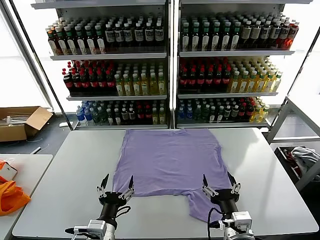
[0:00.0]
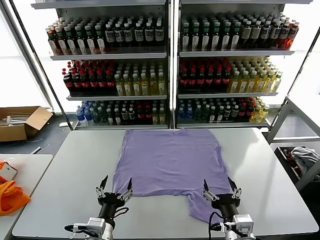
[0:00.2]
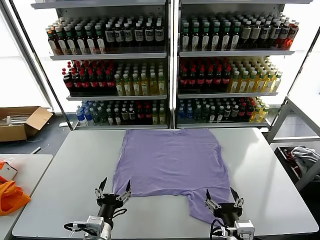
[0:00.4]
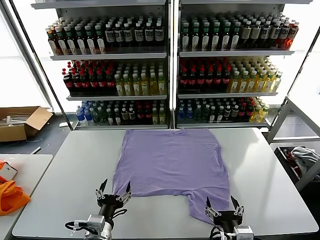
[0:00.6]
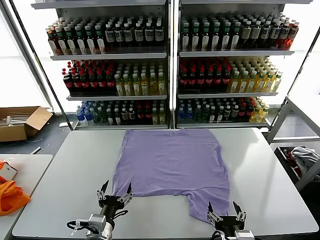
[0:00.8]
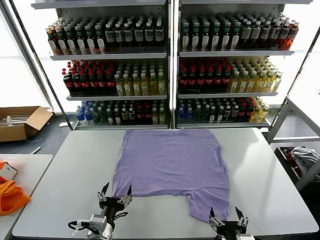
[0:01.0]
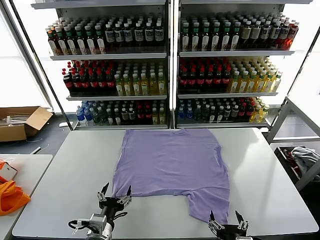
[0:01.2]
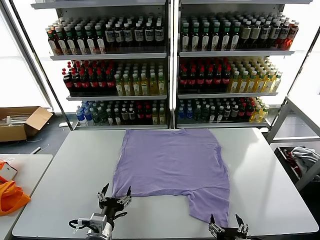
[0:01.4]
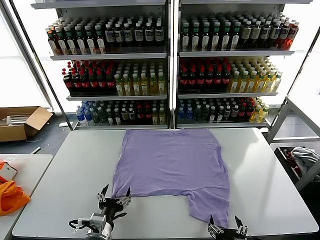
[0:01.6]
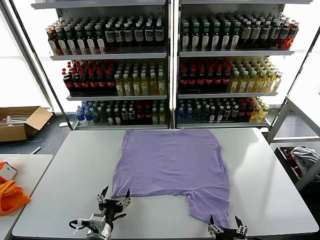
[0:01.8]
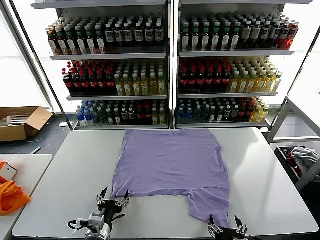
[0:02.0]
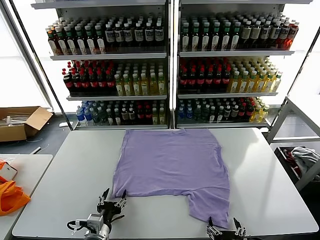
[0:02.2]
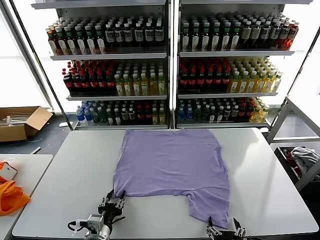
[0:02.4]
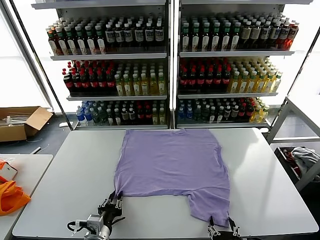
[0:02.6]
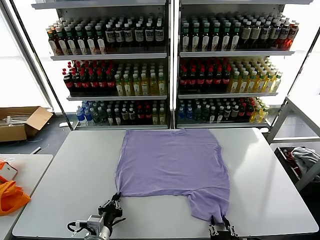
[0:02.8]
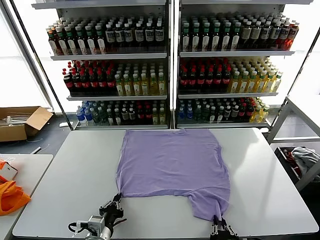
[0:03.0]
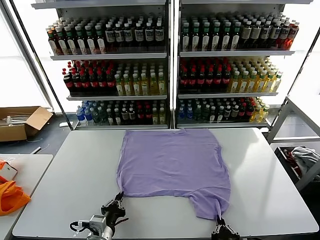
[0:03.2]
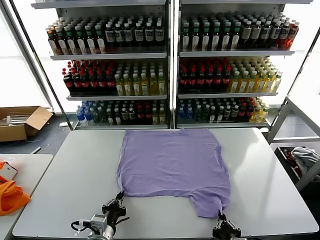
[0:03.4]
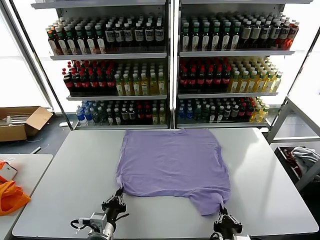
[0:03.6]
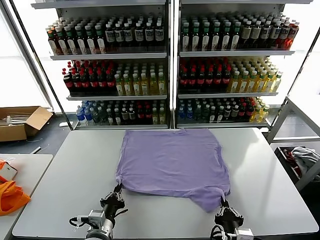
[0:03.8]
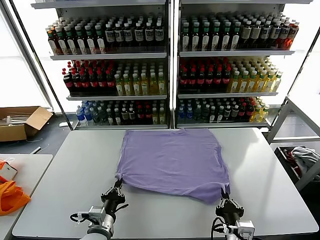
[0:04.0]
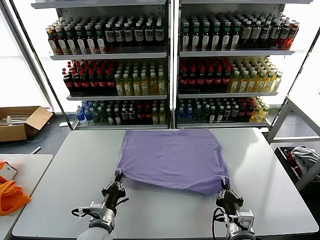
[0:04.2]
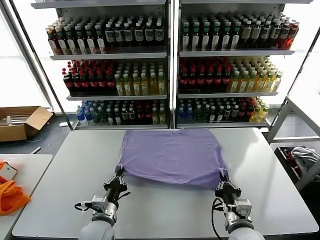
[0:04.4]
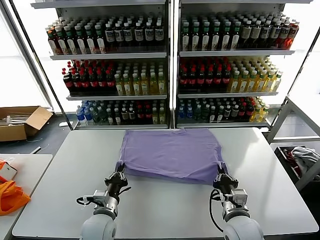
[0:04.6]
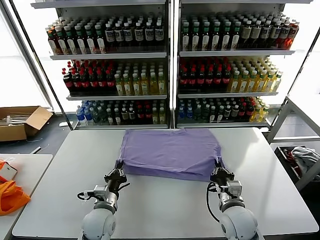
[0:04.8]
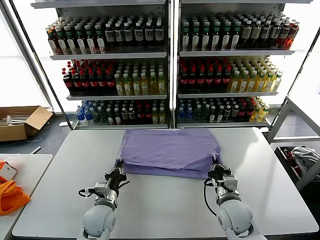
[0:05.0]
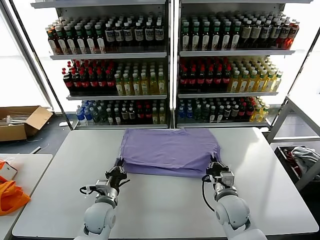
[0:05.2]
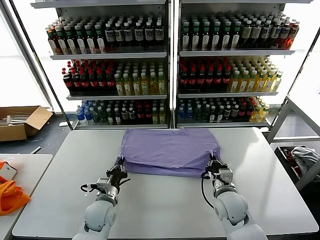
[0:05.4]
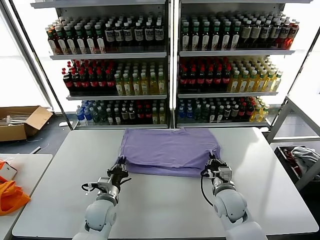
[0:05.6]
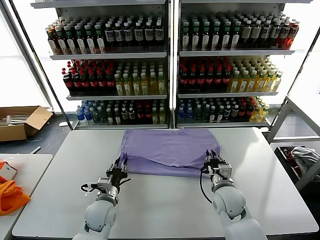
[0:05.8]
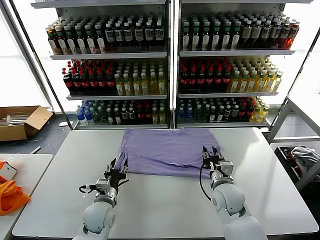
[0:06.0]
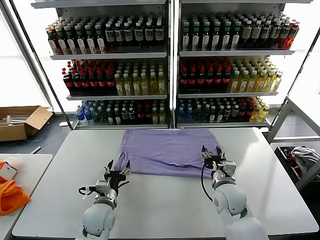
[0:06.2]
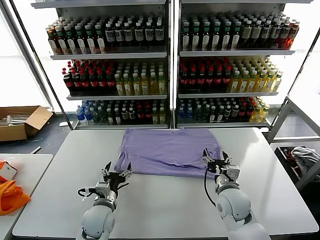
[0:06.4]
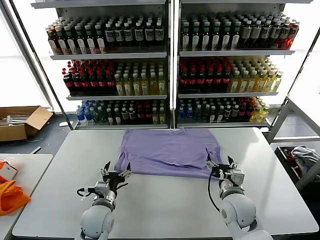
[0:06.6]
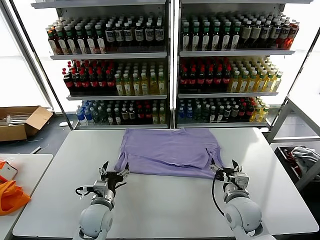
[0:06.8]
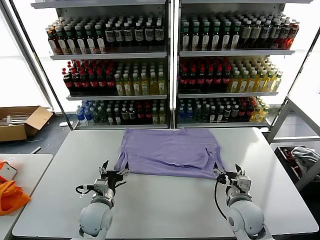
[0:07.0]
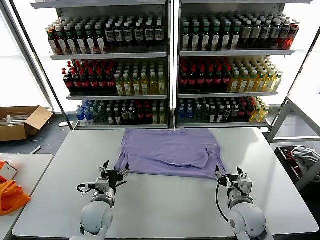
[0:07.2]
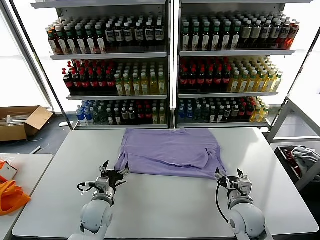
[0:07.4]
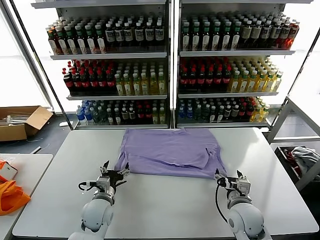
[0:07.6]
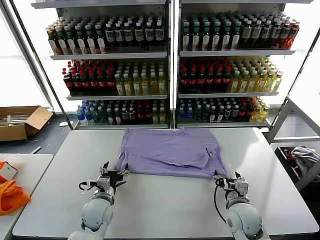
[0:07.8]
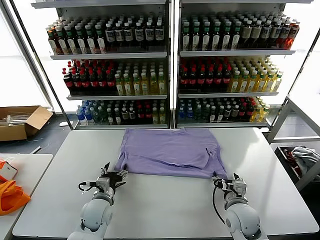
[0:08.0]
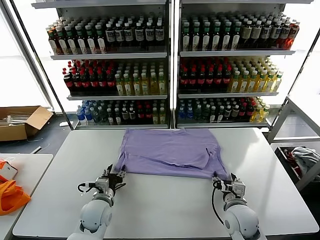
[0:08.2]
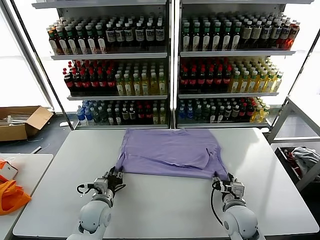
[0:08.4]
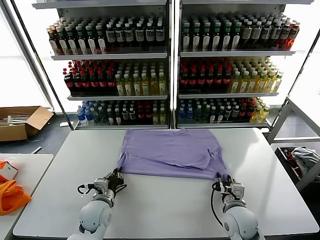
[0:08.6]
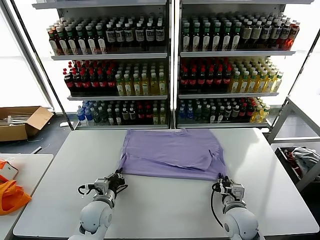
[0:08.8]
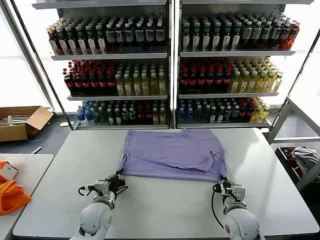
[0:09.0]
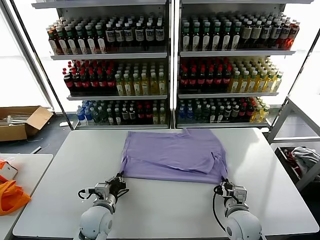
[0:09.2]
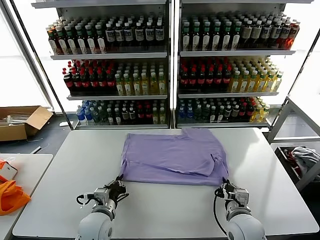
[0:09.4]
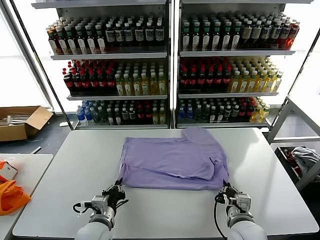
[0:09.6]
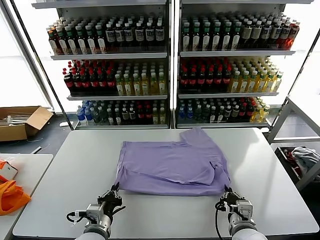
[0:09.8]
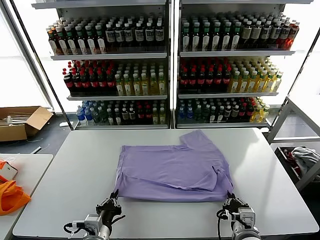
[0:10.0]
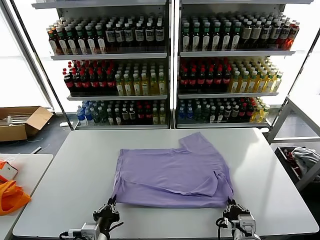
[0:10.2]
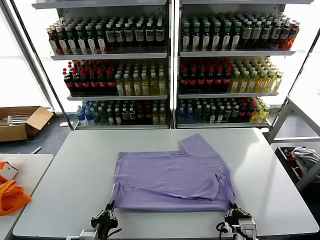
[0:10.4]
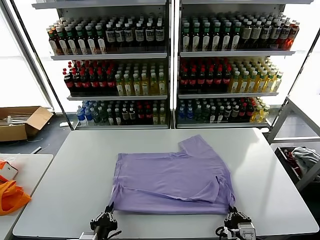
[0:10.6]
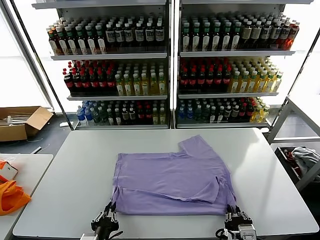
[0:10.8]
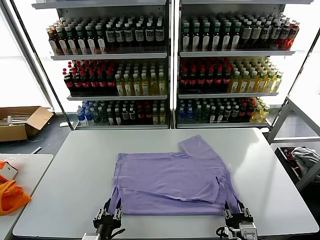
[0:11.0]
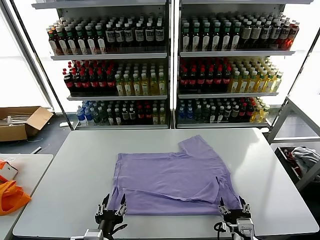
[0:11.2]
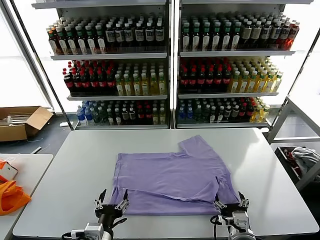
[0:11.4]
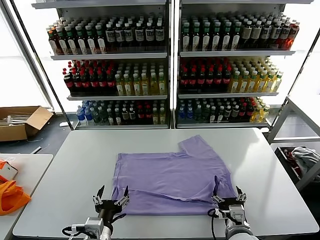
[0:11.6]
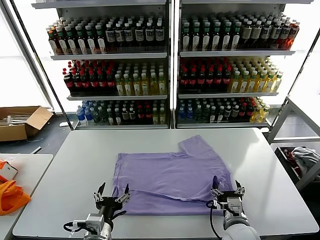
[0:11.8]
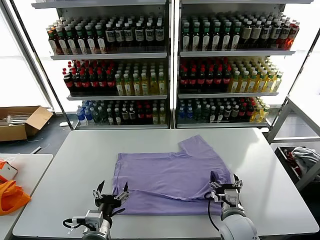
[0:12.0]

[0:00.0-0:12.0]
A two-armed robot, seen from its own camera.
Task of the whole recording: fold and organize the clothes.
Step, 0:00.0 to 0:03.4: use both grippers simultaneously to clamp the lower edge of the clothing fabric.
Step, 0:03.6 to 0:06.0: use both grippers to drag the lower edge of the fabric forward and fold it over the upper edge.
Step, 0:06.2 to 0:11.0: Drag the clothes downward with both gripper.
0:01.6 to 0:03.0: The right gripper closes; the left gripper closes up.
0:03.0 to 0:04.4: The left gripper heads forward, covering approximately 5 cm. Meanwhile the right gripper goes approximately 15 cm forward.
0:04.4 to 0:06.0: The left gripper is displaced forward by about 5 cm, and opens, while the right gripper shifts about 10 cm forward, and opens.
0:06.0 to 0:07.6: The right gripper moves backward, some 5 cm, and opens.
0:07.6 to 0:09.0: The left gripper closes up. Meanwhile the right gripper closes its fingers.
0:09.0 to 0:10.4: The two grippers go about 15 cm backward.
0:10.4 to 0:12.0: The left gripper opens up. The right gripper goes about 10 cm forward, and opens.

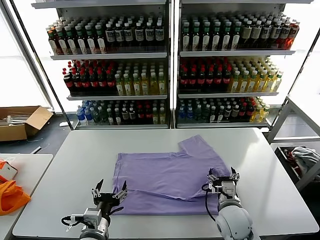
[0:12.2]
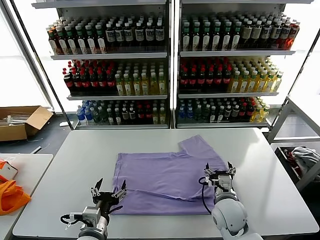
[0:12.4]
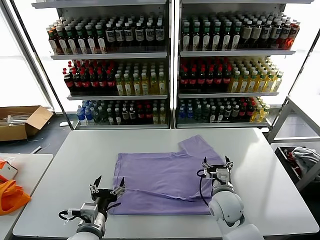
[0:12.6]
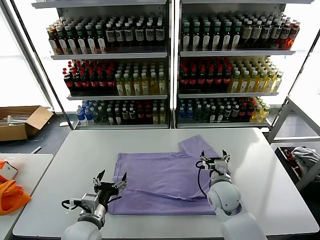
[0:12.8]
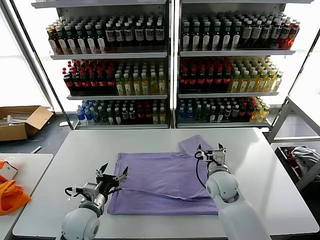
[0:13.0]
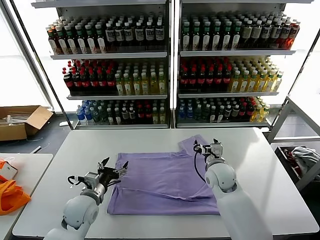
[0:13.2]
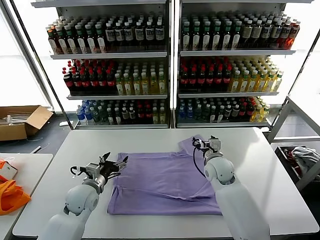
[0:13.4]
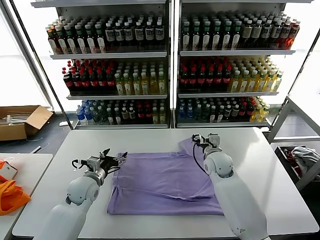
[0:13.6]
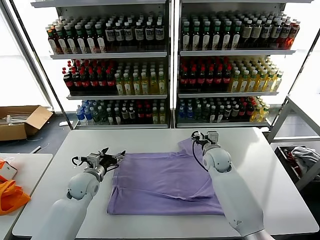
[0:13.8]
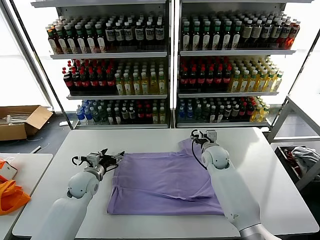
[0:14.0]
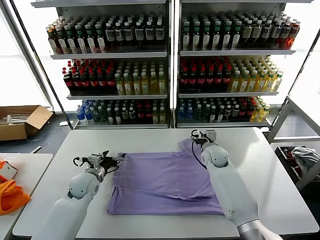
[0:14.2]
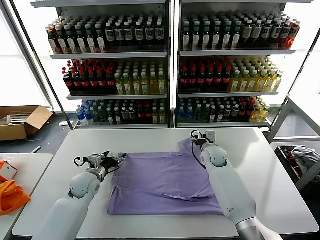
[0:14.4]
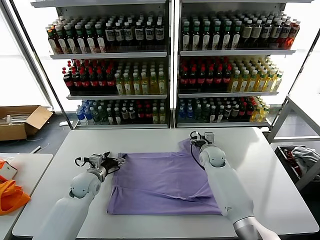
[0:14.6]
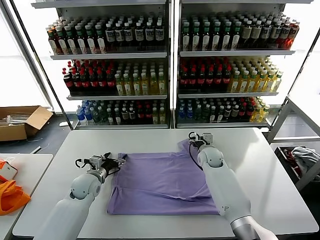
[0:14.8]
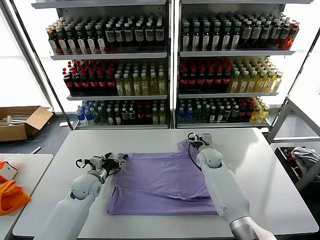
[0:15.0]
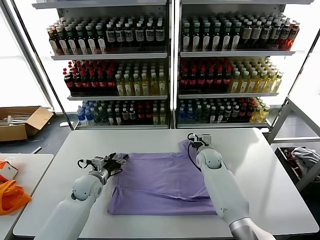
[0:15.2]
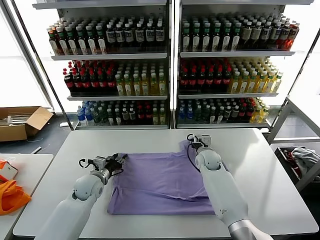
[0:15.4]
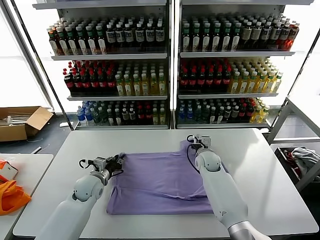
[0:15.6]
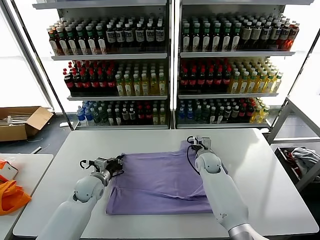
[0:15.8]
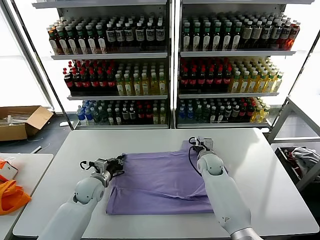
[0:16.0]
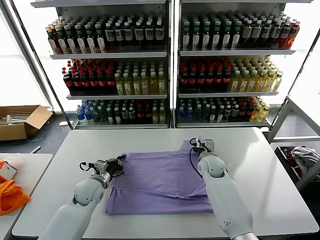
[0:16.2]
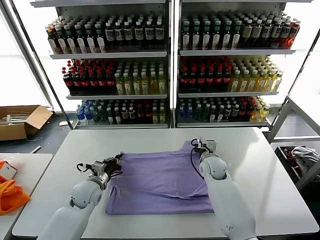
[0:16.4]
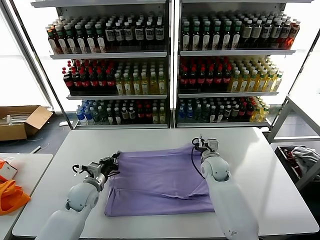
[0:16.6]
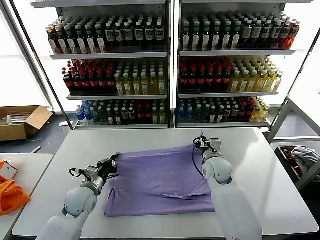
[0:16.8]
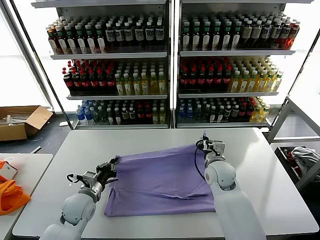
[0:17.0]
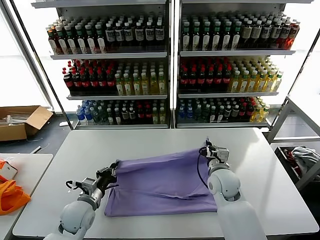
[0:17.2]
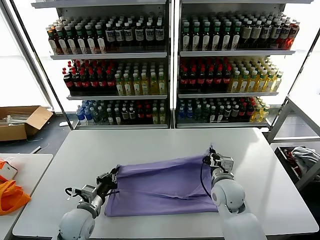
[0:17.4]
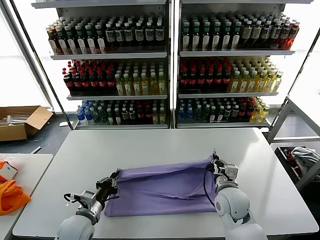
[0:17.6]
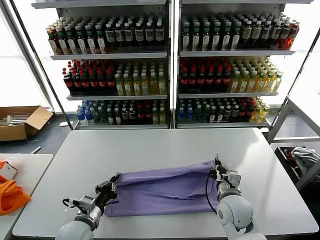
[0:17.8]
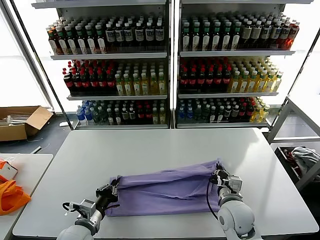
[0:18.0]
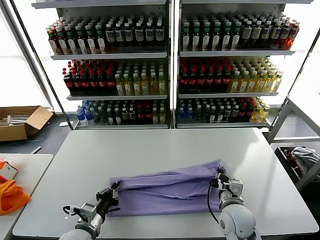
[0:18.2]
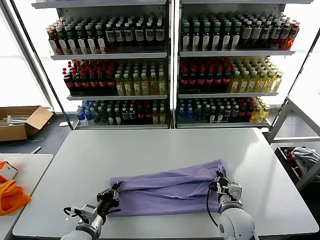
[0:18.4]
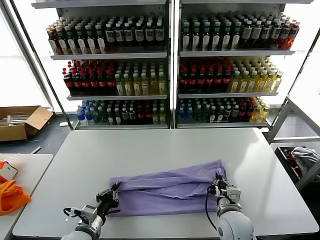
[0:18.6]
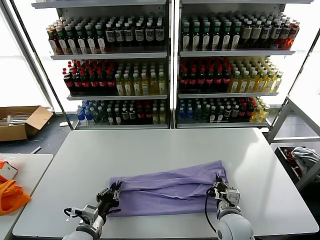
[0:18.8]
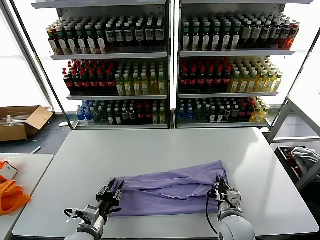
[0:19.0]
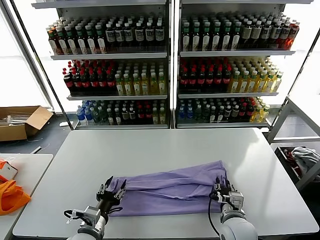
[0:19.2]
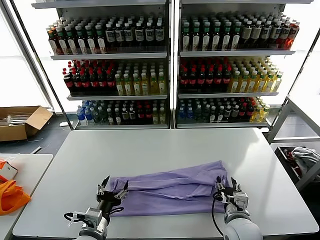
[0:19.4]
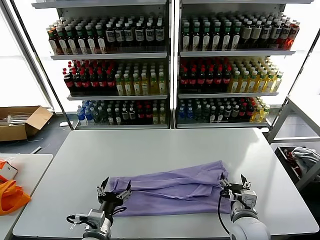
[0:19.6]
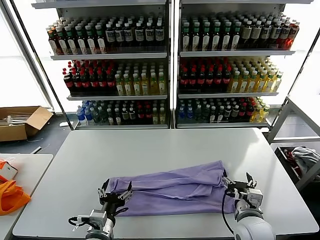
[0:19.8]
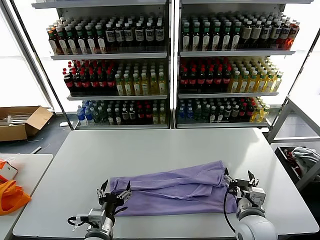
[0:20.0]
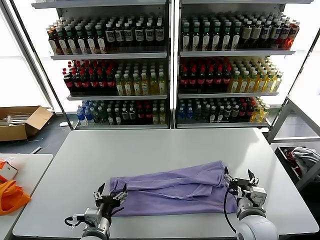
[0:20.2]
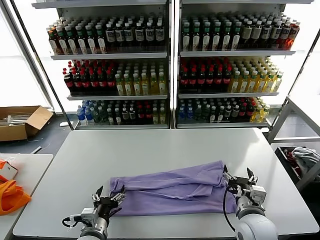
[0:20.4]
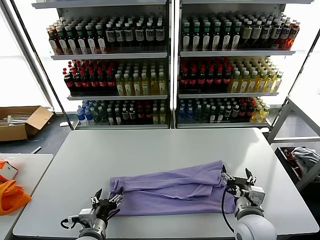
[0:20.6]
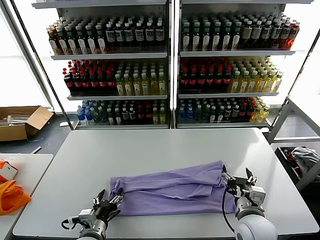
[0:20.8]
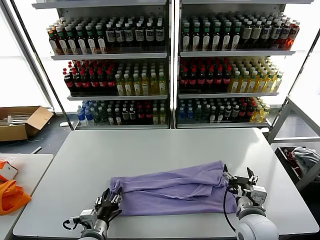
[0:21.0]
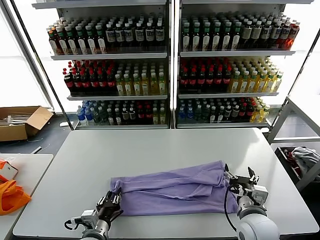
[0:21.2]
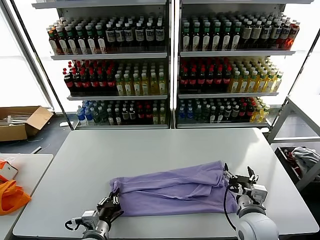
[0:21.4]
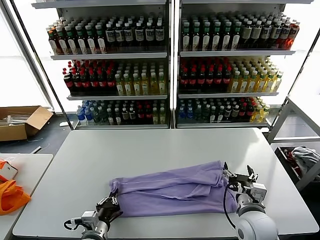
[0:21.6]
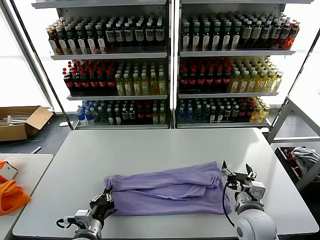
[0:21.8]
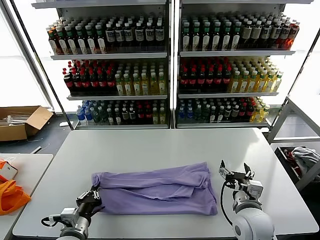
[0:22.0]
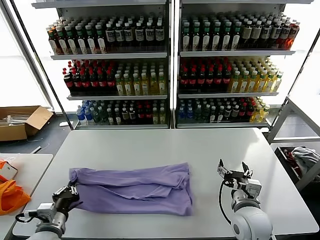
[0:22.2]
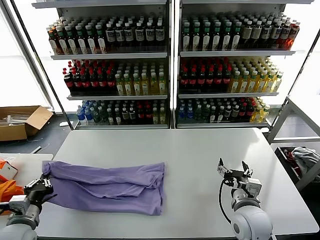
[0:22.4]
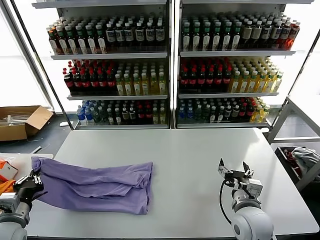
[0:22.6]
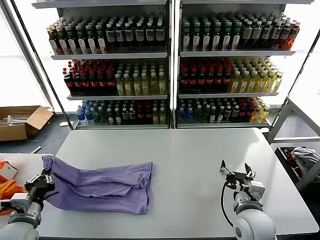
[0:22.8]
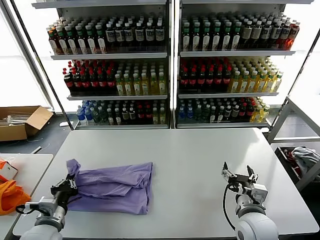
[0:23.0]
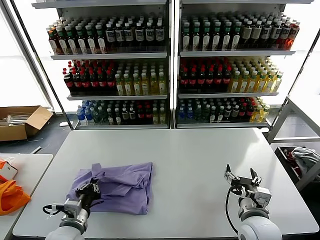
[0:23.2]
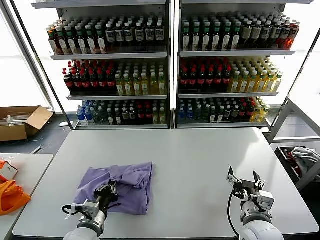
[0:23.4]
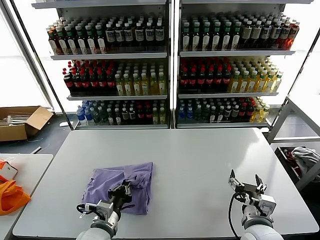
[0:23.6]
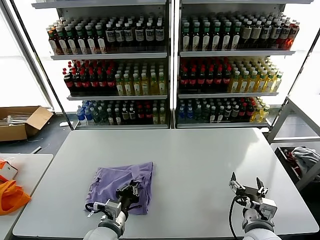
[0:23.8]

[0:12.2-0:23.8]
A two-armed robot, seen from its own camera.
Task of the whole recording: fold and organize the clothes.
Step, 0:12.2 to 0:15.8: use both grippers simultaneously to clamp the upper edge of the clothing fabric.
Step, 0:16.0 to 0:19.4: use both grippers to drag the upper edge of the fabric backward and fold it over the lower edge.
Step, 0:19.6 to 0:21.4: use the left gripper to clamp the left edge of the fabric.
0:12.2 to 0:13.6: The right gripper travels forward by roughly 20 cm. The left gripper is displaced forward and to the left by roughly 20 cm.
0:13.6 to 0:15.0: The right gripper heads downward and forward, covering approximately 10 cm.
0:15.0 to 0:16.6: The left gripper closes. Meanwhile the right gripper travels backward by some 5 cm, and closes up.
0:16.6 to 0:18.0: The grippers both shift backward by roughly 15 cm.
0:18.0 to 0:19.4: The right gripper opens. Meanwhile the left gripper moves about 5 cm, and opens.
0:21.0 to 0:22.4: The left gripper shifts about 15 cm to the left, and closes up.
0:22.4 to 0:23.8: The left gripper heads to the right, covering approximately 20 cm. The right gripper moves backward, some 5 cm.
